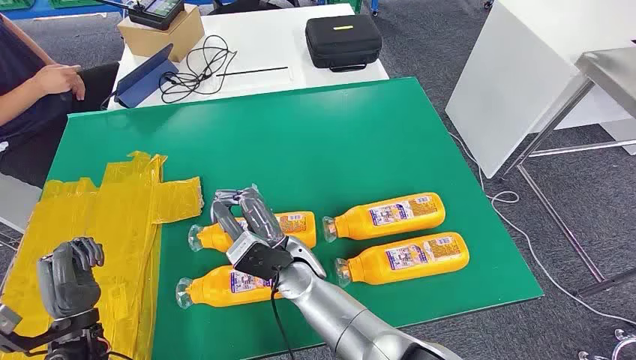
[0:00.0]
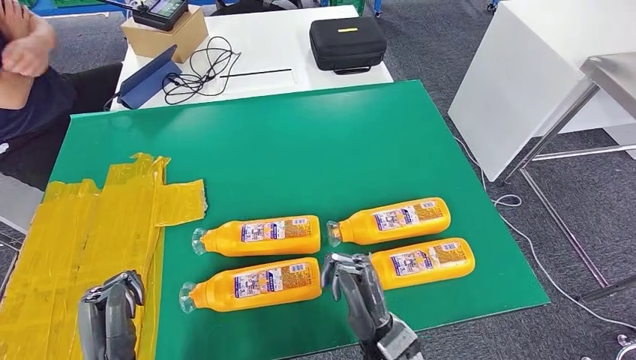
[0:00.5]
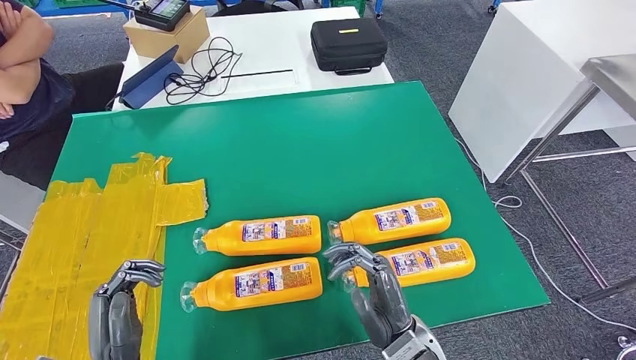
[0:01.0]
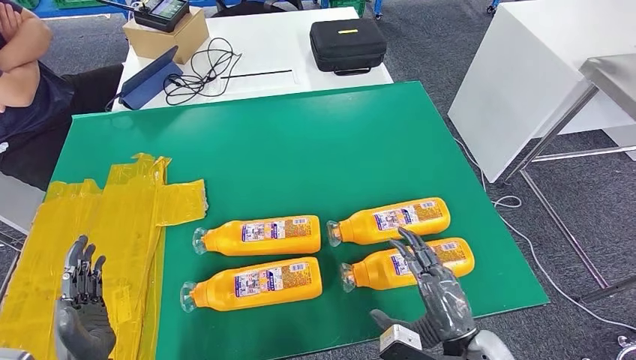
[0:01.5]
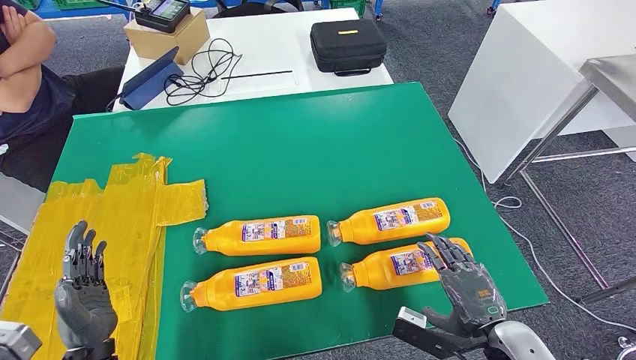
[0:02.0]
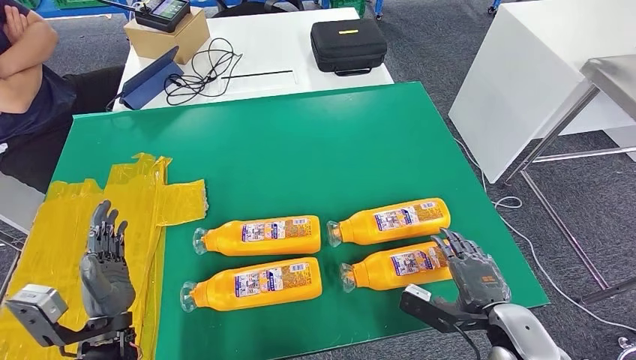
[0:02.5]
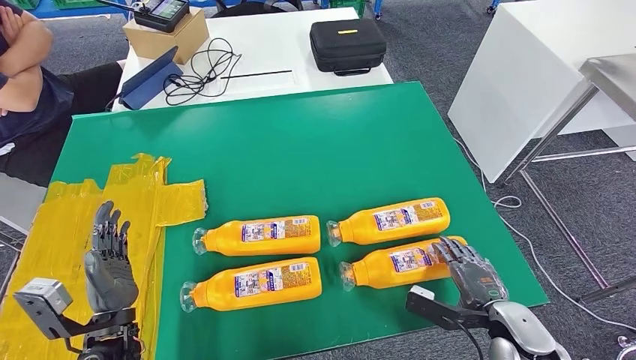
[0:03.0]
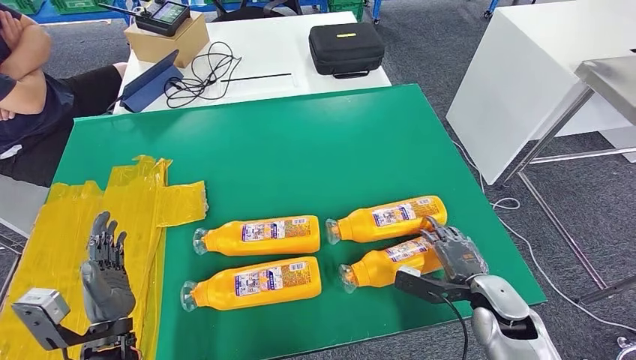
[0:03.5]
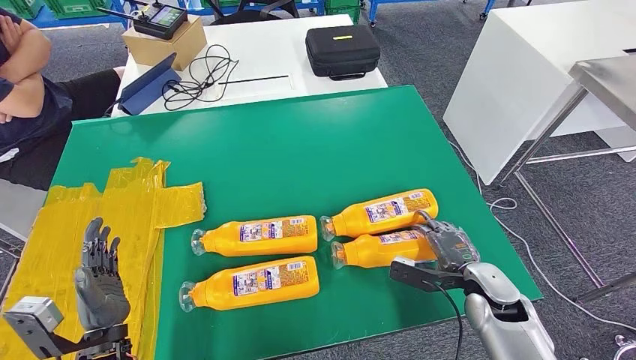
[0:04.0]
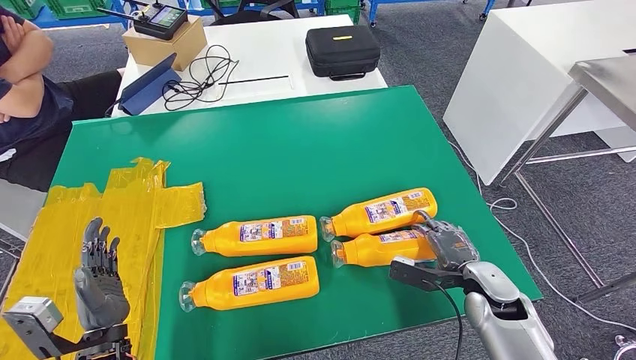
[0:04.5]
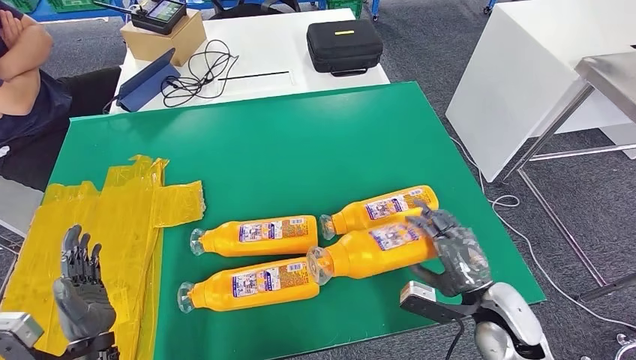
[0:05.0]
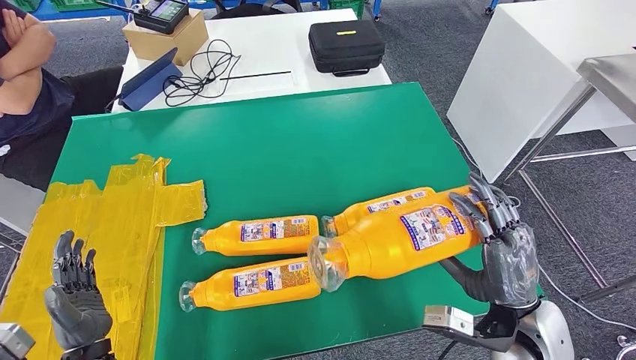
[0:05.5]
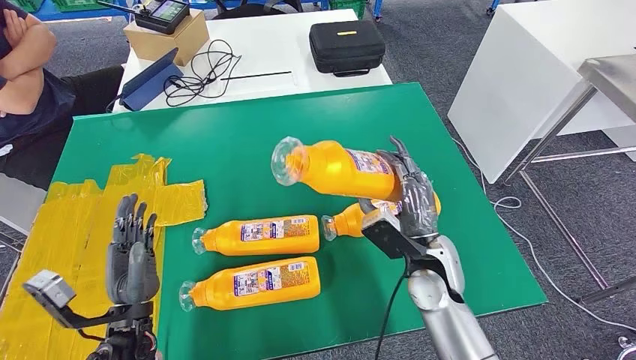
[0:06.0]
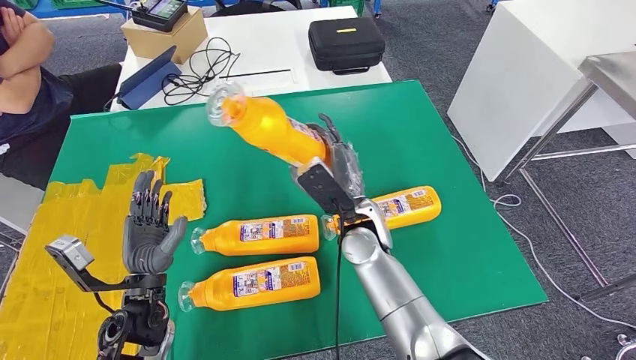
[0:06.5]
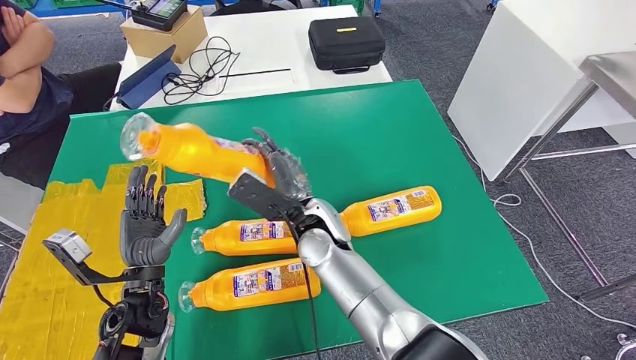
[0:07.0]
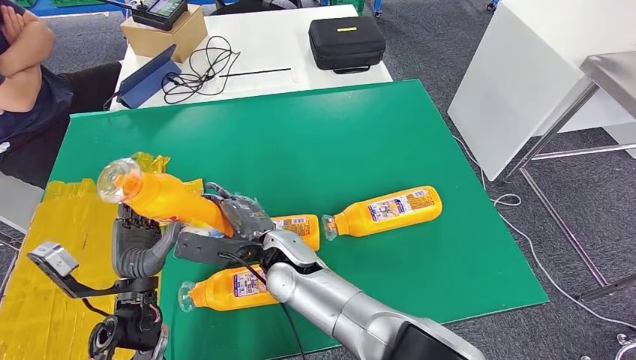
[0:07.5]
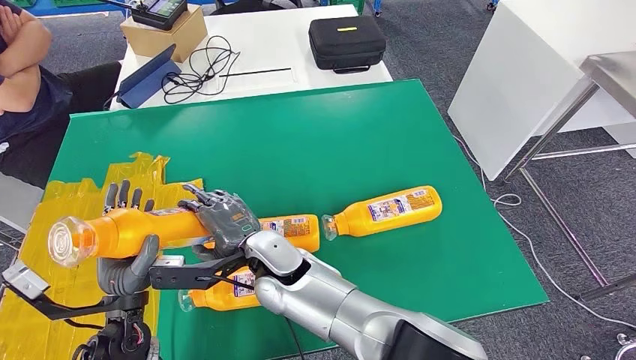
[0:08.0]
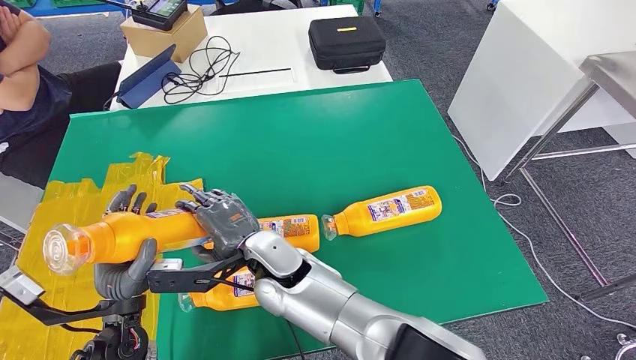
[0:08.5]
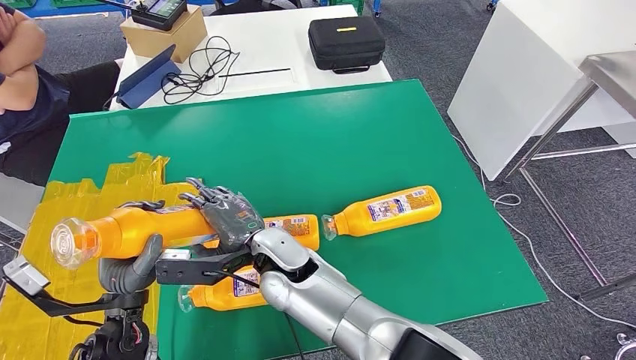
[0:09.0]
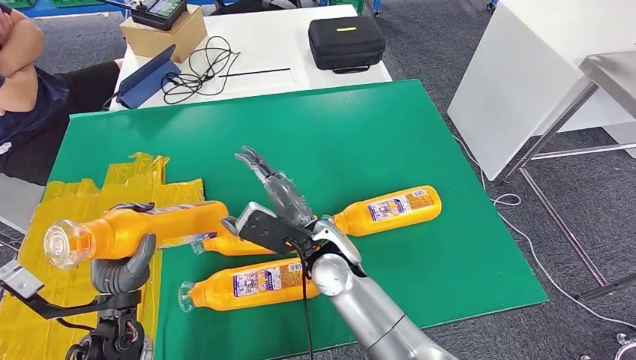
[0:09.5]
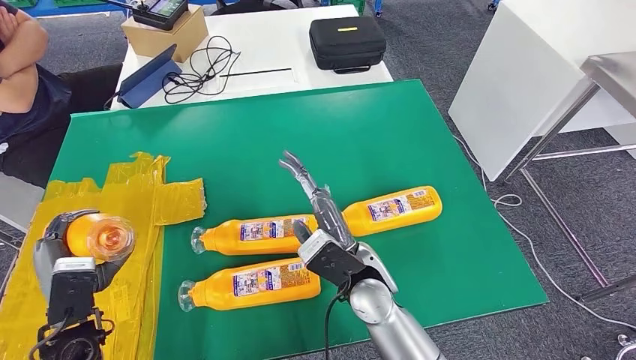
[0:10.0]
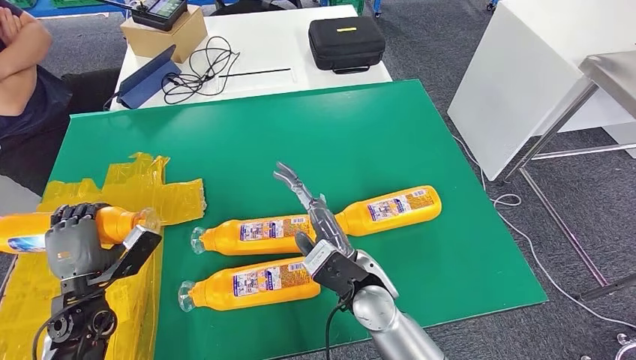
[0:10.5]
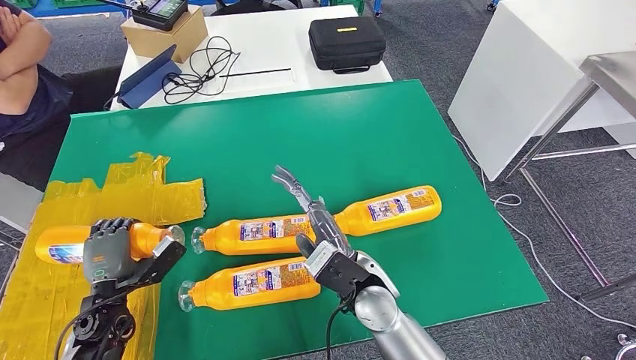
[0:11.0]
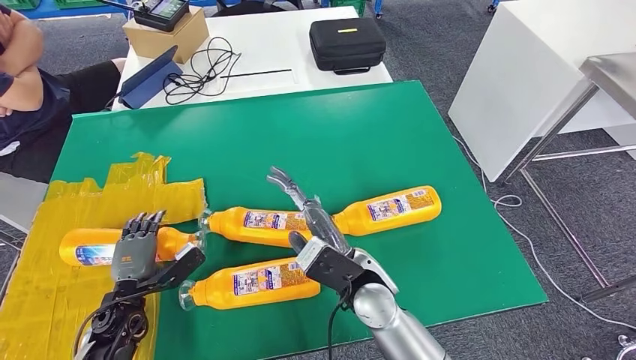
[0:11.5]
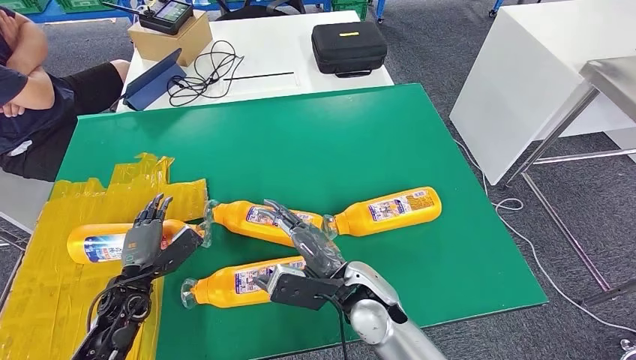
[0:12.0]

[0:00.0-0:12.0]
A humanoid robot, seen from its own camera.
Step, 0:00.0 to 0:05.5: Take the bottle from the table.
0:08.0 to 0:10.0: The right hand heads to the right, covering some 15 cm. The left hand goes roughly 5 cm to the left.

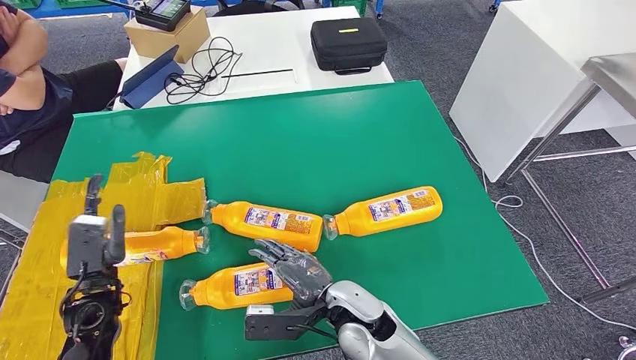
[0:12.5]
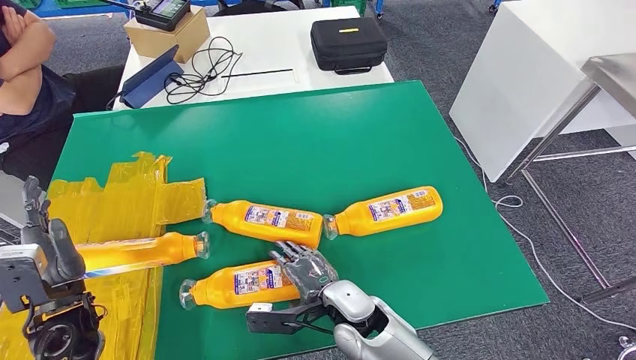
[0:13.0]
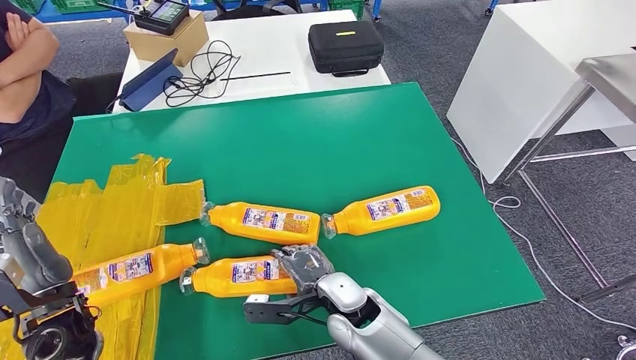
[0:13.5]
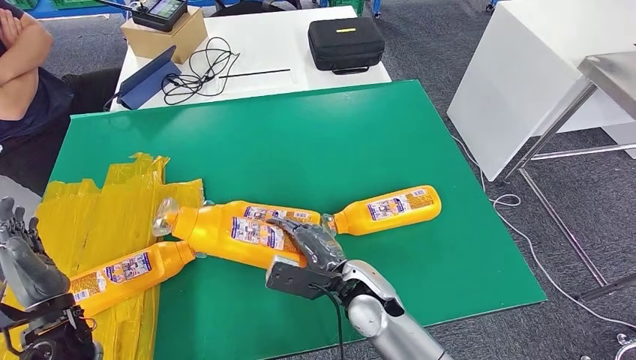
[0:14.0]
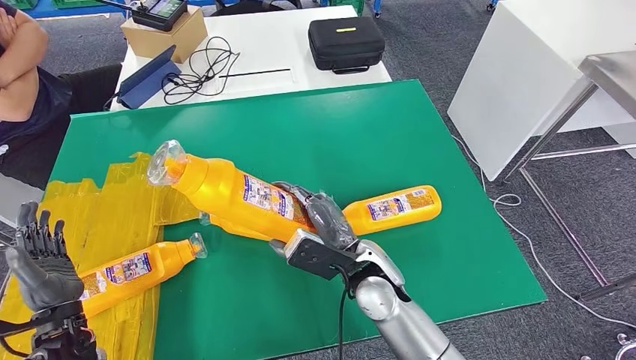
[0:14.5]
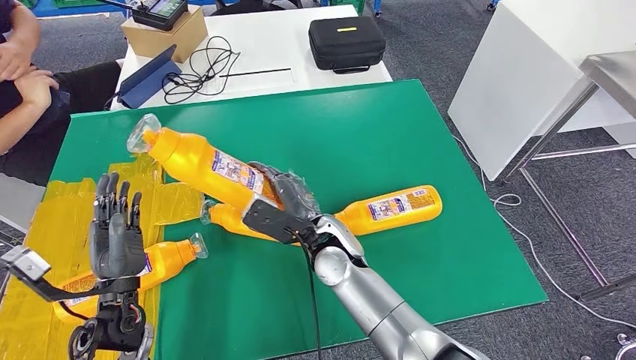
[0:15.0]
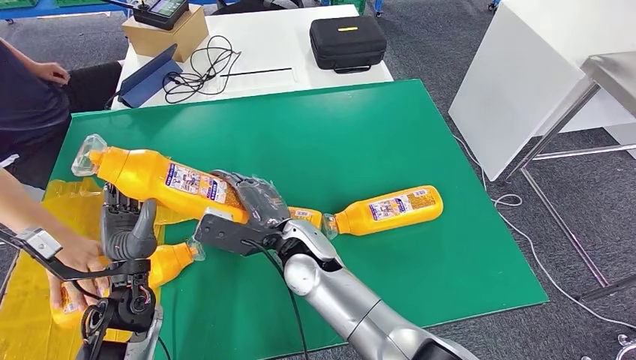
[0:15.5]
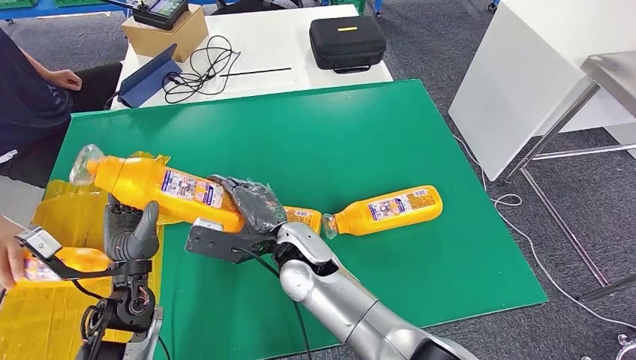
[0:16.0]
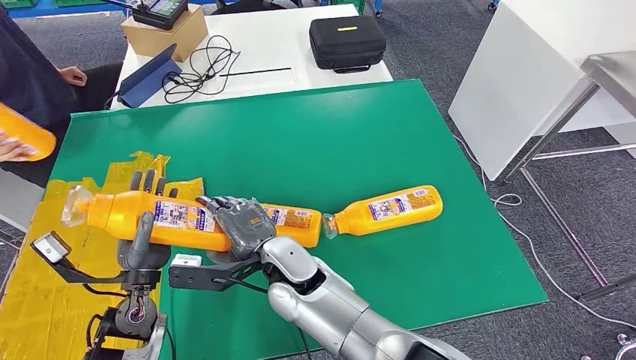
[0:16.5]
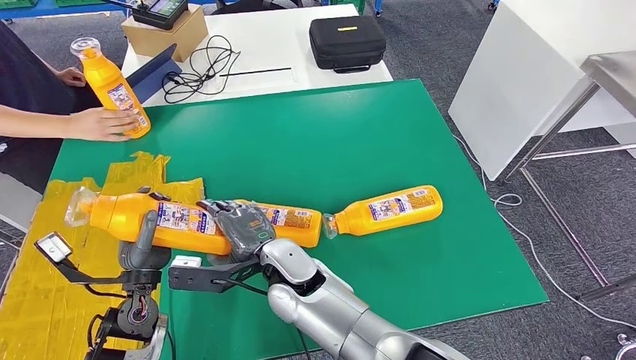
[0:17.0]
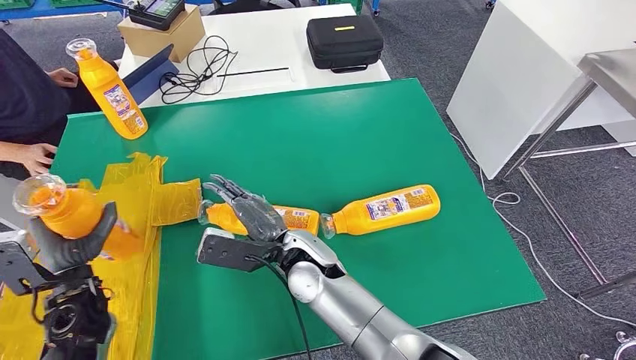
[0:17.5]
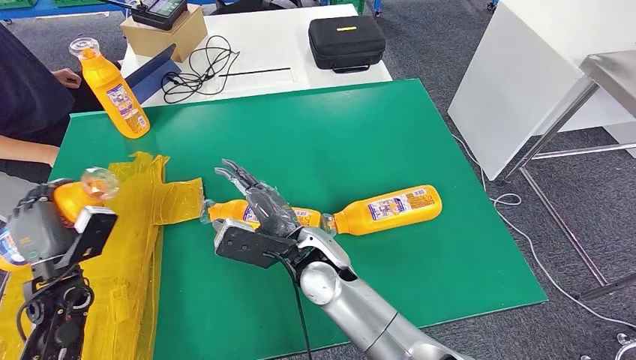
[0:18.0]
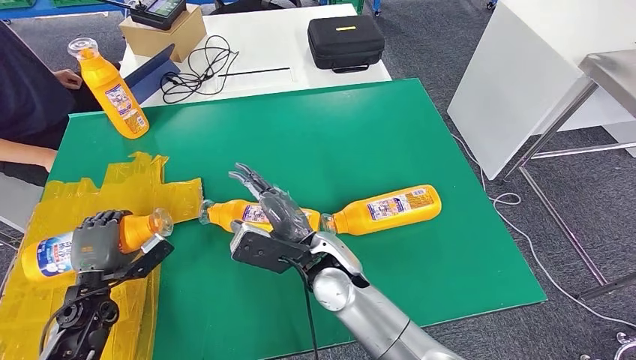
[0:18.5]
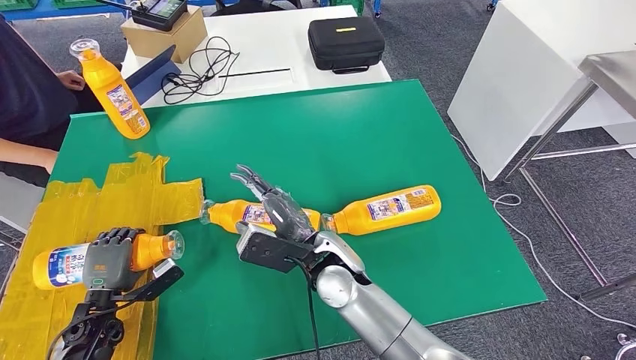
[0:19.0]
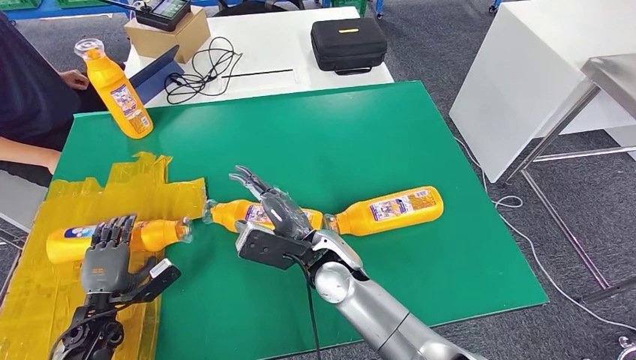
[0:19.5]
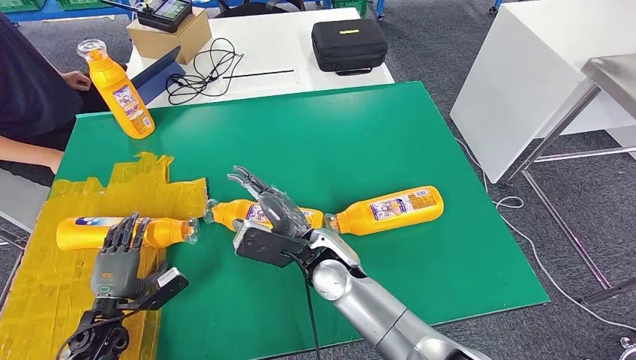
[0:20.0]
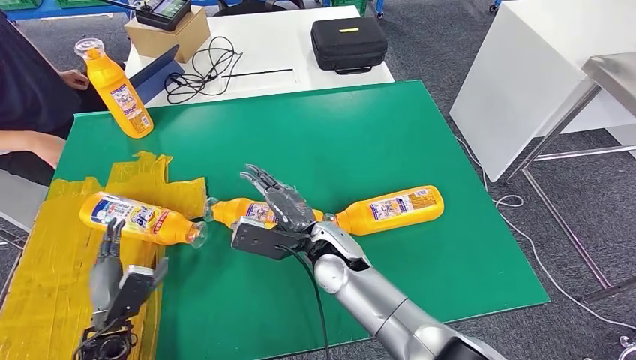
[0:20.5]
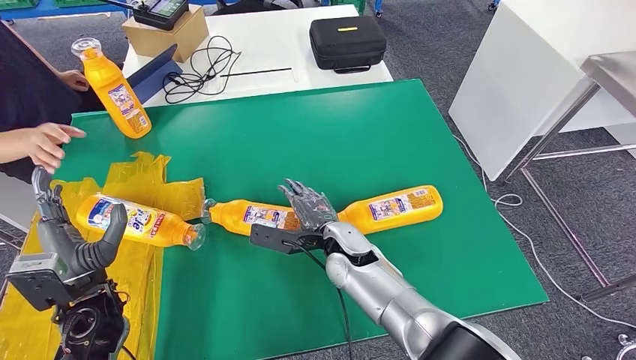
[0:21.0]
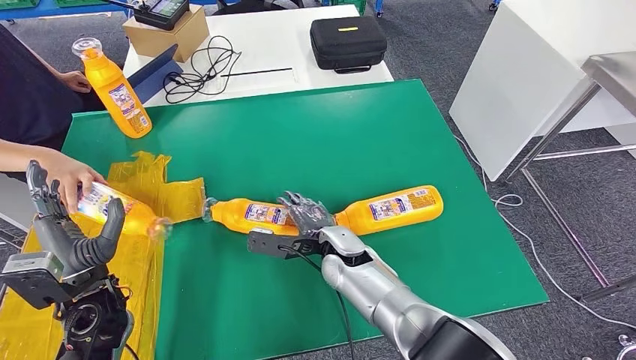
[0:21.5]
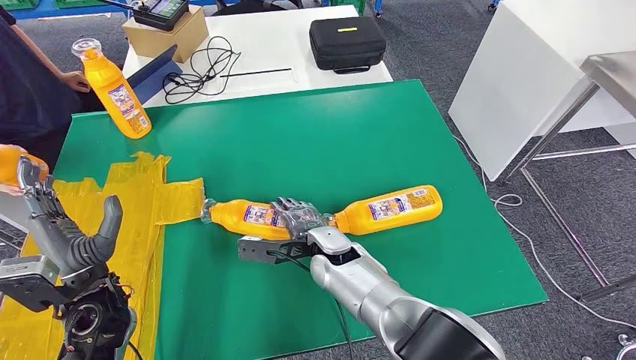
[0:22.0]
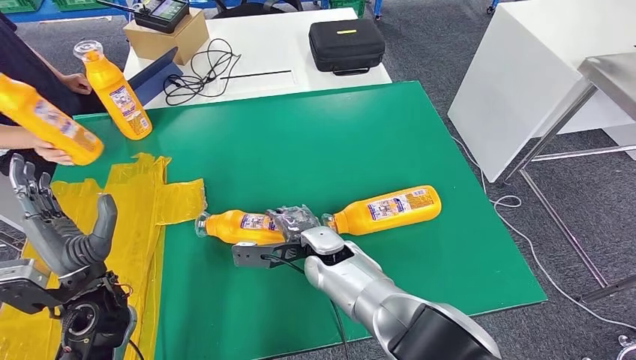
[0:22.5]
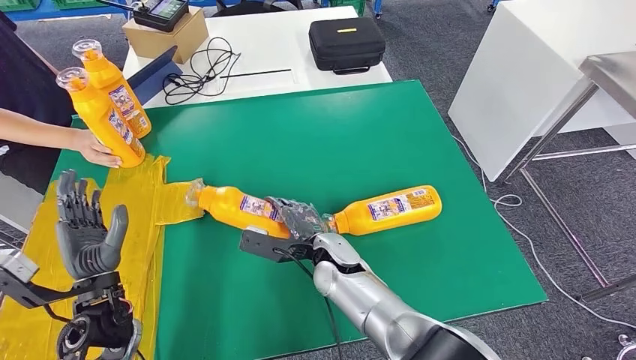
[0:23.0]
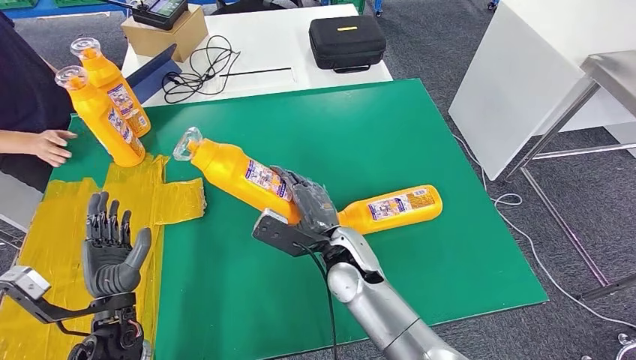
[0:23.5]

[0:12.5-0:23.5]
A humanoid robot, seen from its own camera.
Step, 0:12.5 to 0:16.5: Pick up the bottle from the table.
Step, 0:17.0 to 0:19.0: Flip the bottle to face forward.
